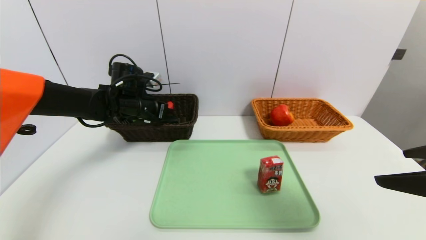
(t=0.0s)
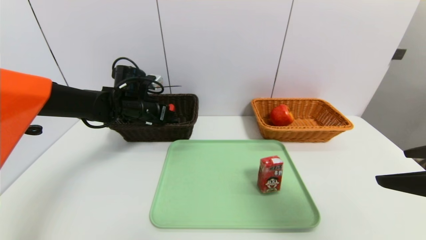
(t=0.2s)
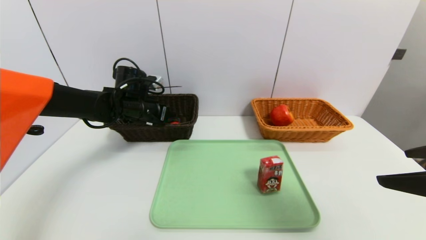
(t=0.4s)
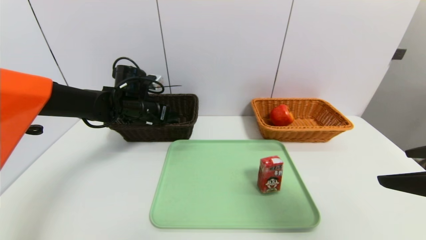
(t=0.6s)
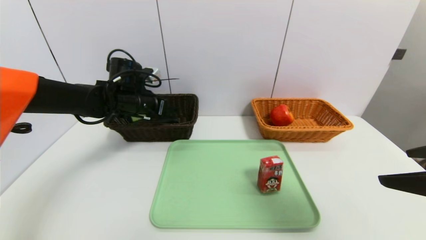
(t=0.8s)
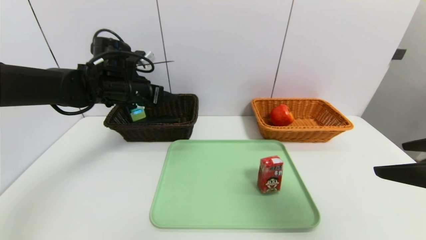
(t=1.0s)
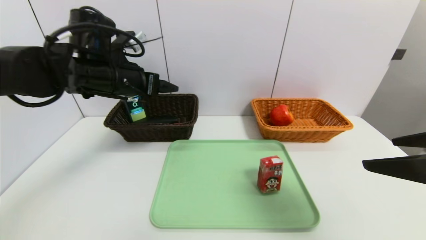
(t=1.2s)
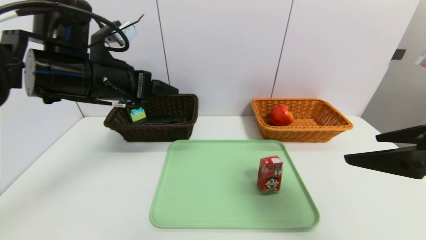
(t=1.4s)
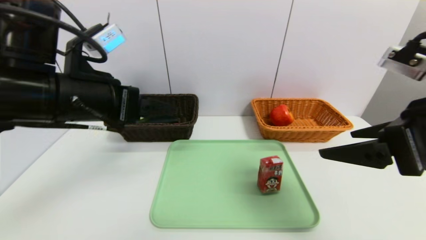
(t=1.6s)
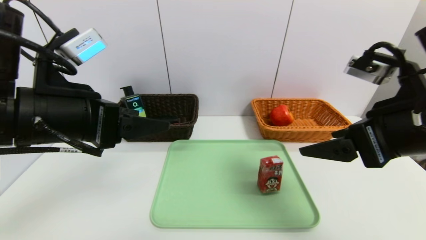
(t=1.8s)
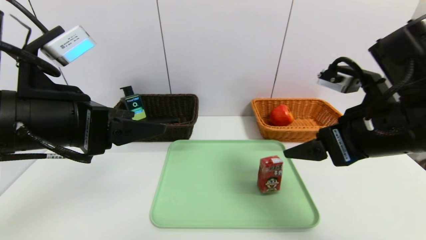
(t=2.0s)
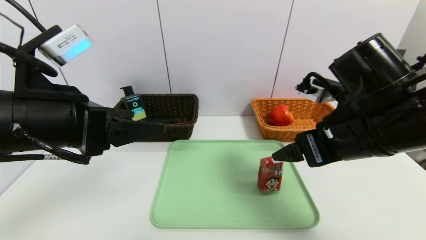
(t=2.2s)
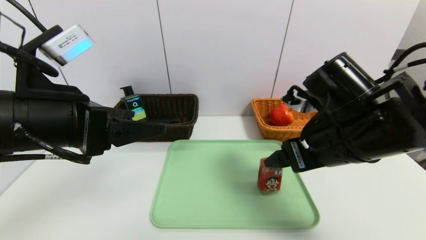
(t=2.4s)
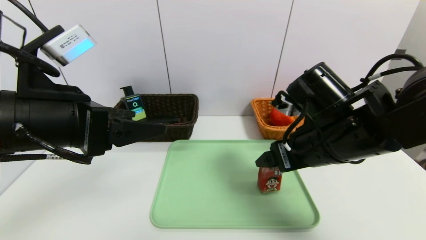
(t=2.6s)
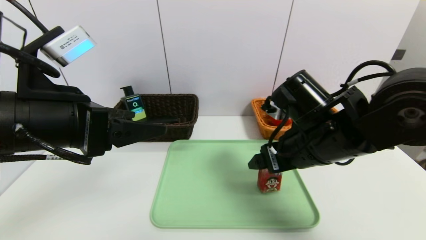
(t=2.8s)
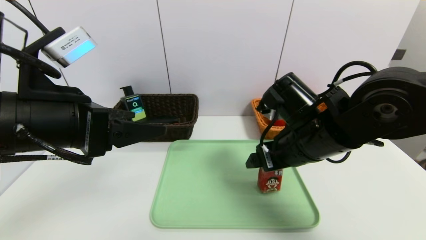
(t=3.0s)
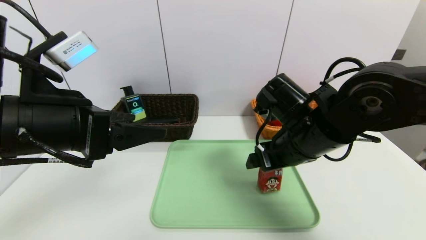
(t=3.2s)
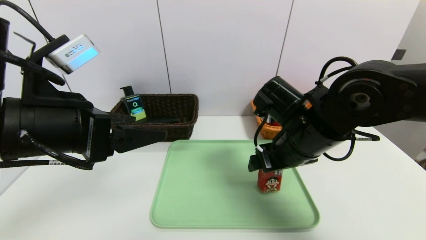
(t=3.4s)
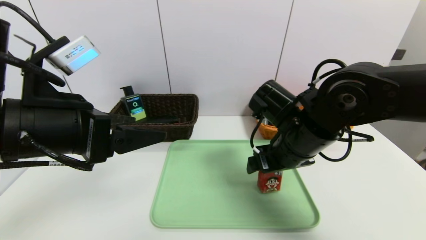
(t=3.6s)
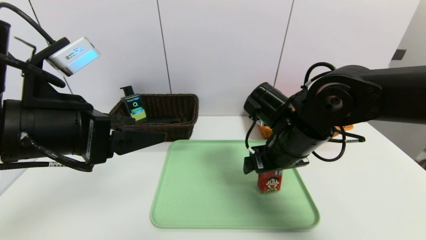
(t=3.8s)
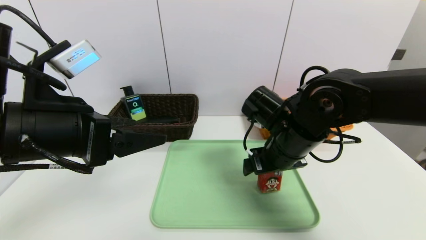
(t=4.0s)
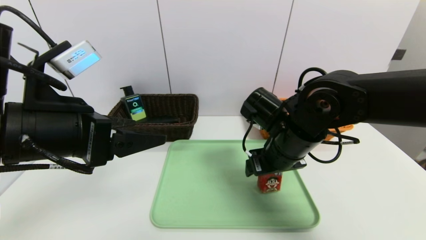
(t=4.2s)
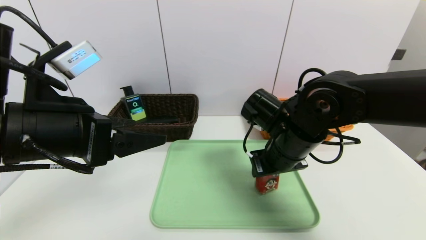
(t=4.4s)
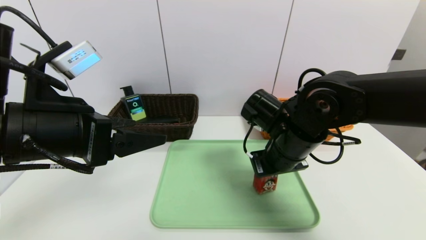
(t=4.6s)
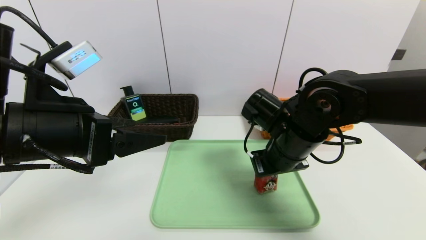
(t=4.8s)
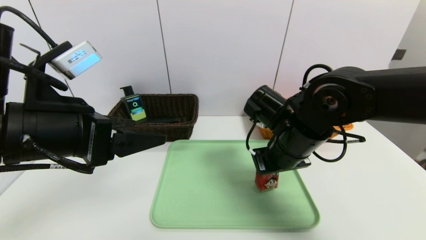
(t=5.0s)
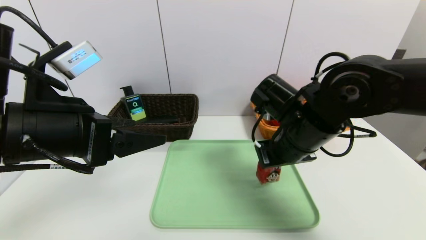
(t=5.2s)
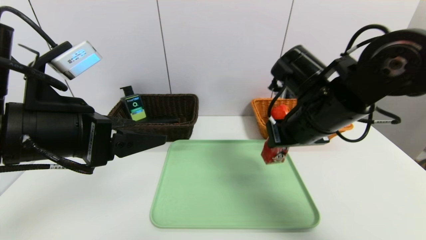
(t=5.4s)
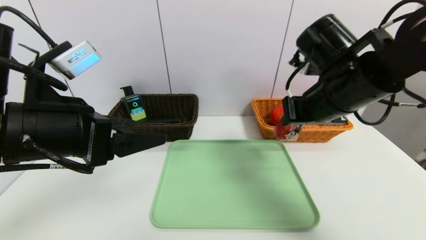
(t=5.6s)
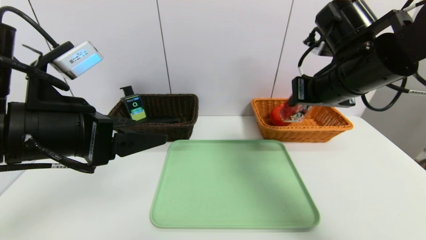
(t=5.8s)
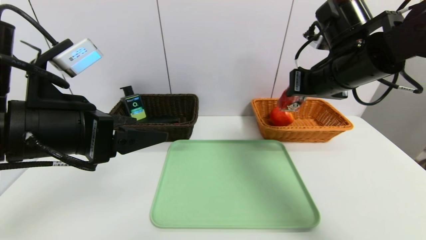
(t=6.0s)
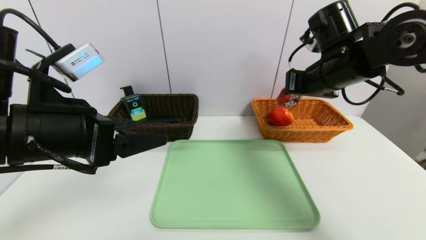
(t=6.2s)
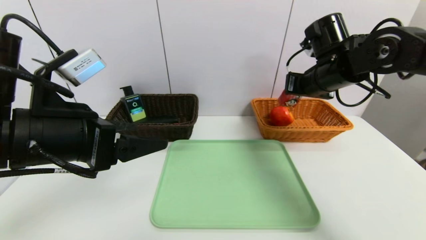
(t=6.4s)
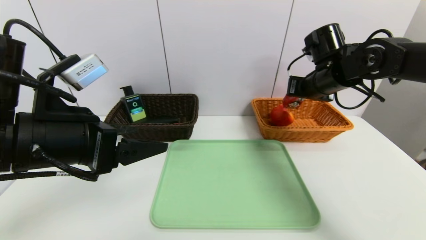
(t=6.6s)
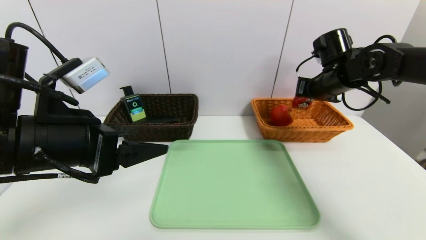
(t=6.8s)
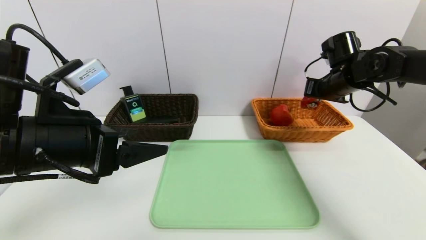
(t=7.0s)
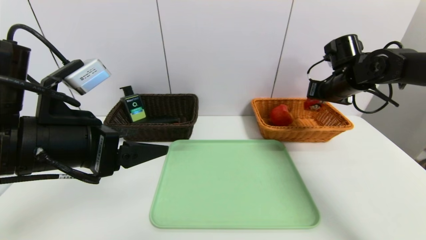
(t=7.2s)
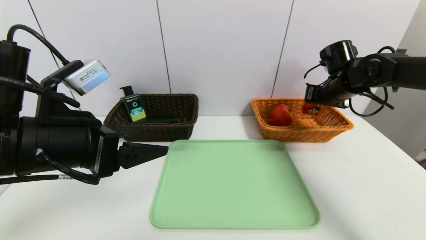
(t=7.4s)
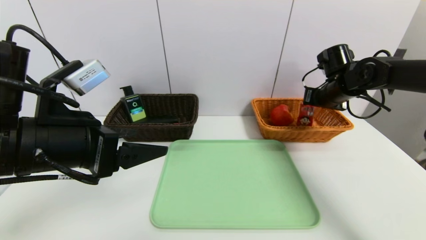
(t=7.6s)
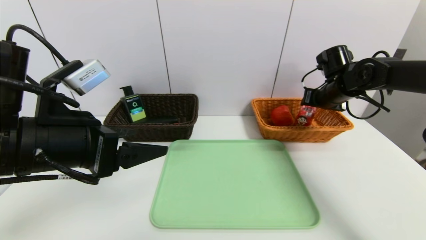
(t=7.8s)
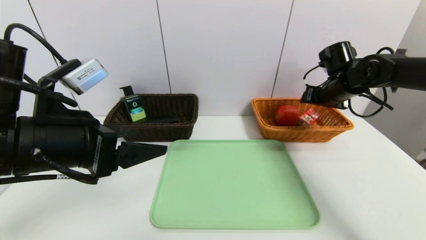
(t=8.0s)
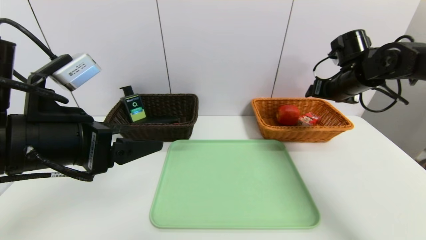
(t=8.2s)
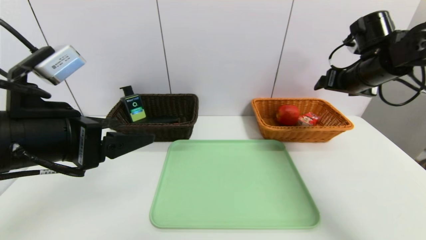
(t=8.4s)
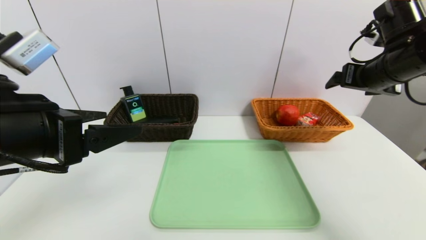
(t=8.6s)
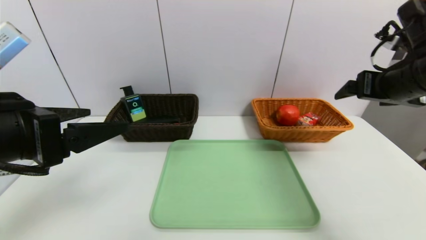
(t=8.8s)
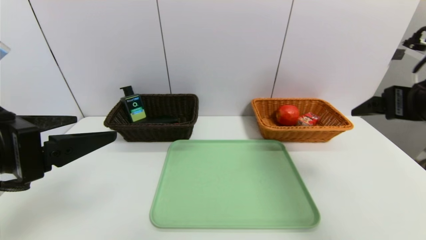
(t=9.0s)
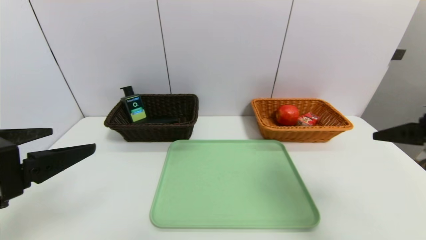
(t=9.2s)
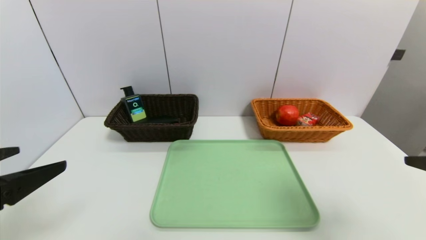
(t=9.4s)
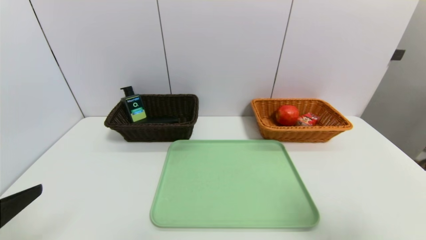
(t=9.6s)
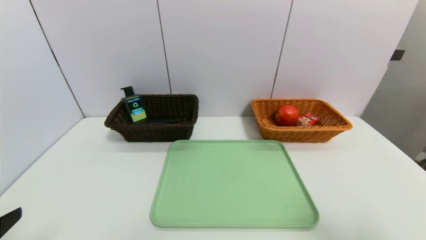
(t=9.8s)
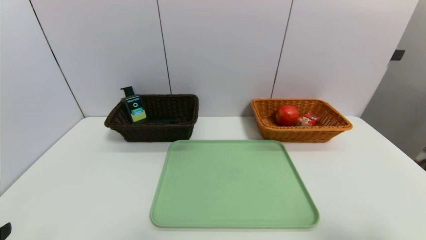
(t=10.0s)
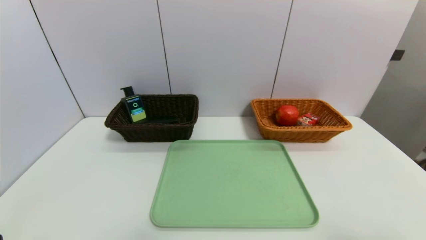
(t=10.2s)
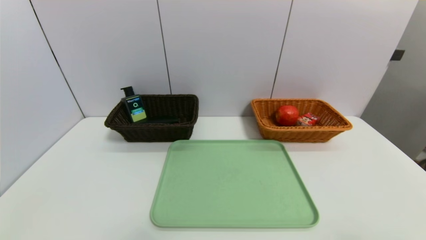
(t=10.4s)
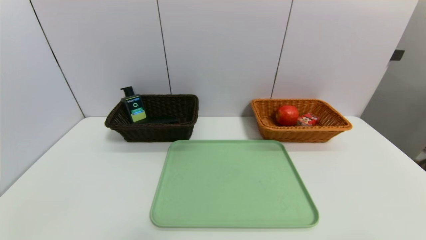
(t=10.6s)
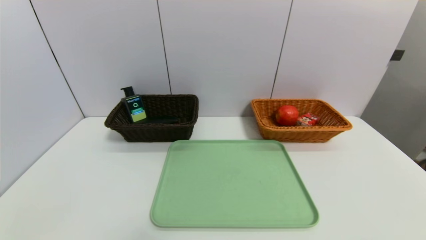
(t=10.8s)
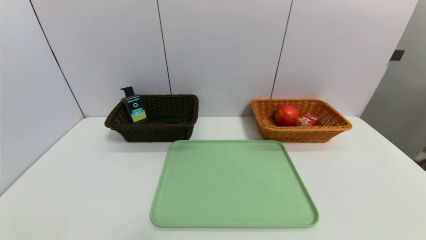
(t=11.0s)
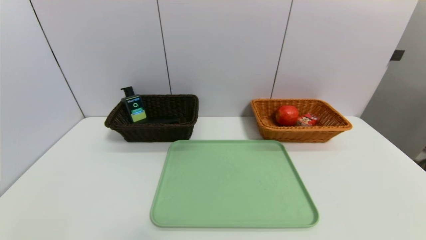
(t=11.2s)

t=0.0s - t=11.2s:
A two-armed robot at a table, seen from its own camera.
Task of the whole recording: place the food in the right basket with the right gripper, and place the non food items in the left basket with the left gripper.
Step, t=0.8s - t=7.8s: Grasp the milk and put it in the right basket.
t=0.0s - t=1.6s: The left gripper shifts roughly 25 cm backward and upward, and opens up; the right gripper ends up about 5 cm from where it was.
t=1.6s - t=3.2s: The right gripper heads to the left, forward and downward, covering approximately 20 cm.
t=3.2s - t=4.8s: The right gripper closes.
t=4.8s - t=6.4s: The right gripper shifts about 15 cm to the right, forward and upward.
t=6.4s - t=8.0s: The right gripper travels to the right, forward and downward by approximately 10 cm, and opens up.
t=8.0s - t=9.6s: The left gripper heads backward and to the left, covering approximately 15 cm. The right gripper travels backward by roughly 35 cm.
t=9.6s - t=11.2s: The right gripper heads backward and downward, covering some 15 cm, while the left gripper goes about 15 cm downward and backward.

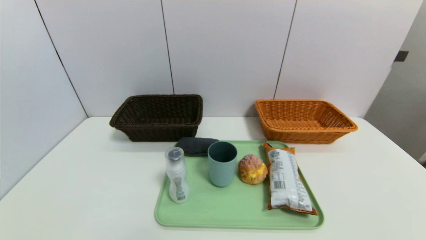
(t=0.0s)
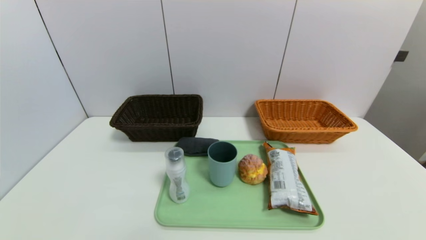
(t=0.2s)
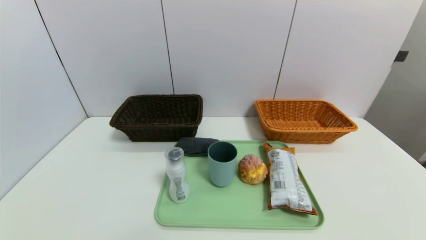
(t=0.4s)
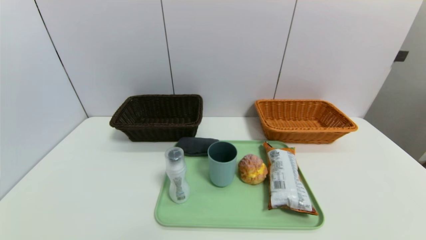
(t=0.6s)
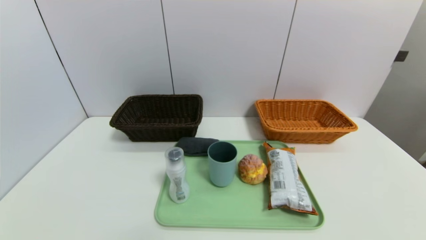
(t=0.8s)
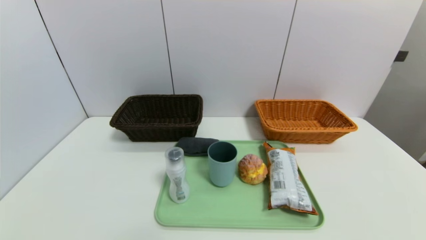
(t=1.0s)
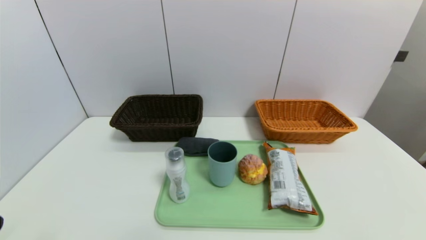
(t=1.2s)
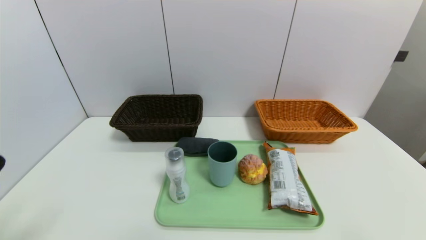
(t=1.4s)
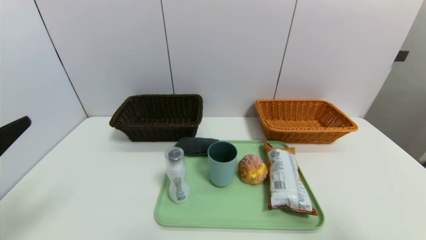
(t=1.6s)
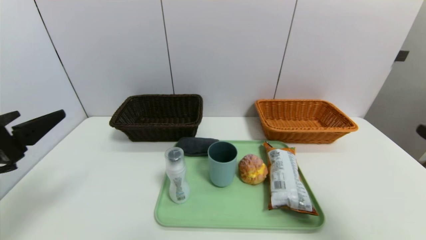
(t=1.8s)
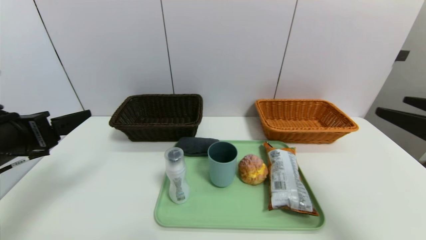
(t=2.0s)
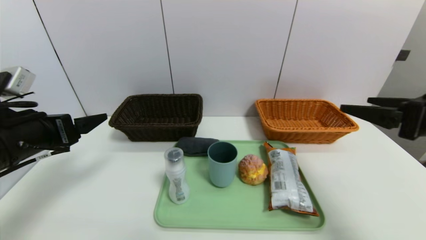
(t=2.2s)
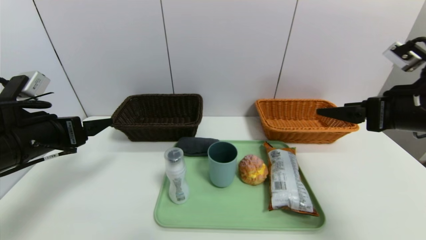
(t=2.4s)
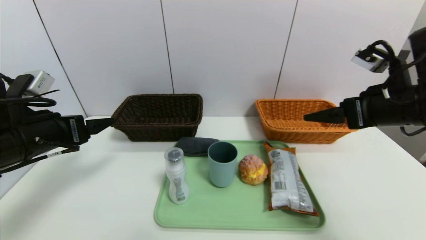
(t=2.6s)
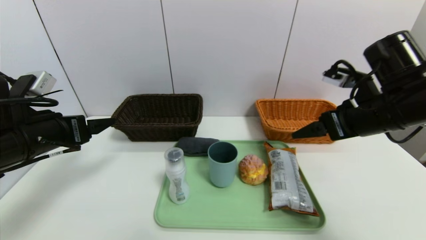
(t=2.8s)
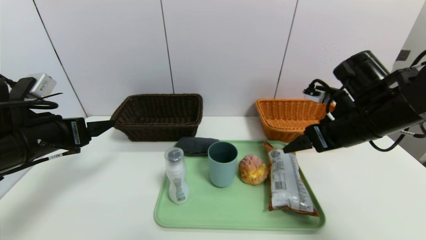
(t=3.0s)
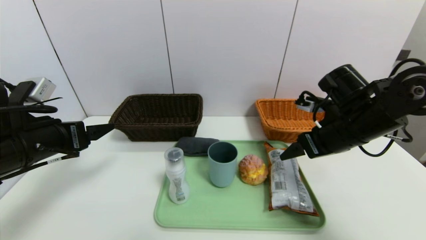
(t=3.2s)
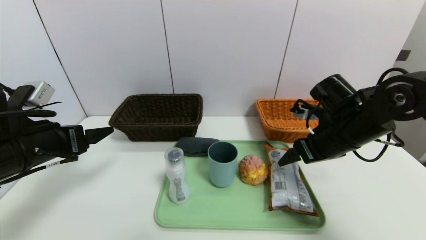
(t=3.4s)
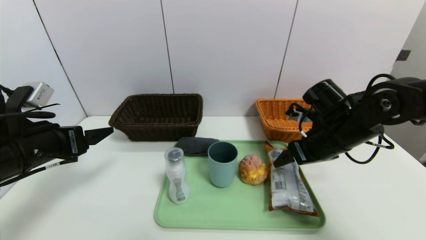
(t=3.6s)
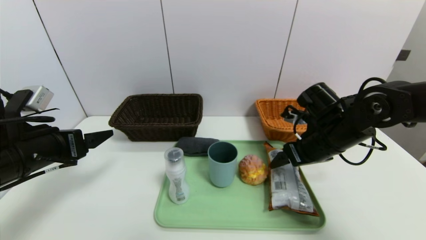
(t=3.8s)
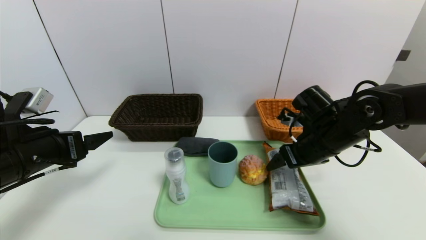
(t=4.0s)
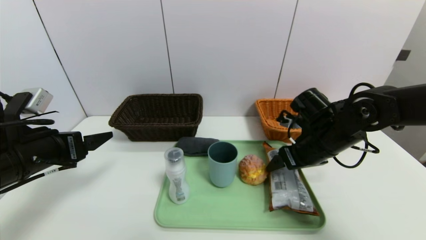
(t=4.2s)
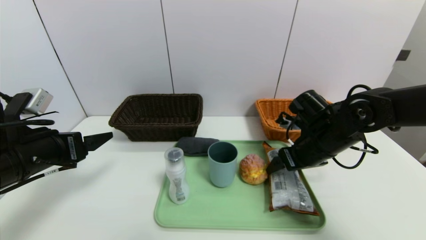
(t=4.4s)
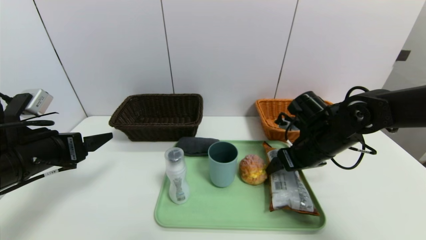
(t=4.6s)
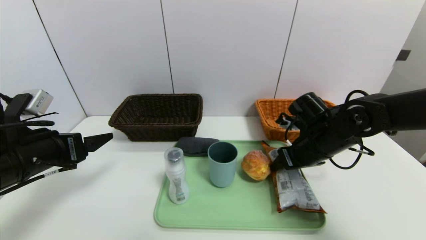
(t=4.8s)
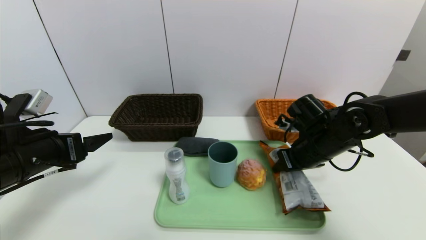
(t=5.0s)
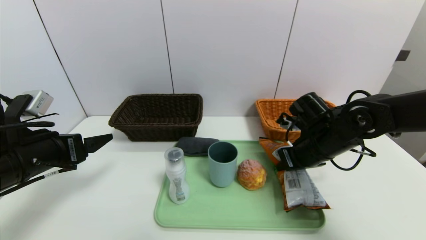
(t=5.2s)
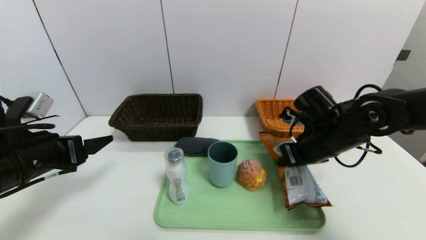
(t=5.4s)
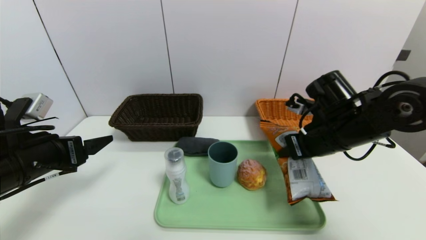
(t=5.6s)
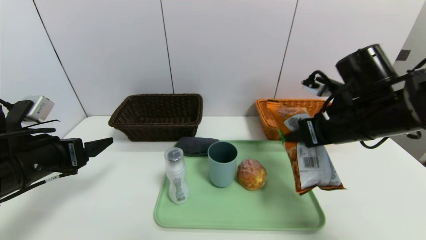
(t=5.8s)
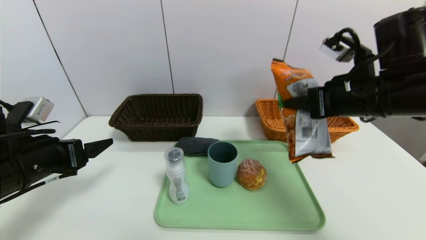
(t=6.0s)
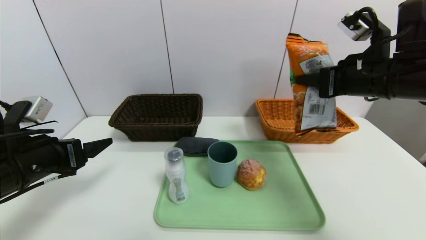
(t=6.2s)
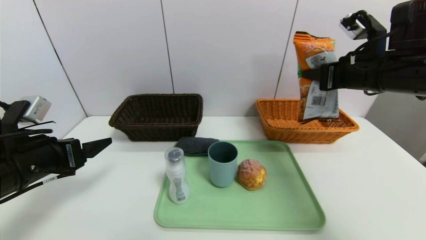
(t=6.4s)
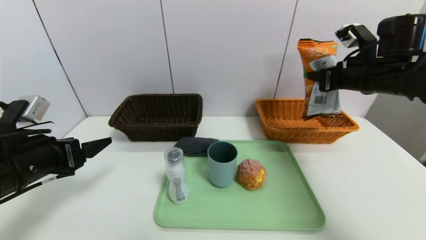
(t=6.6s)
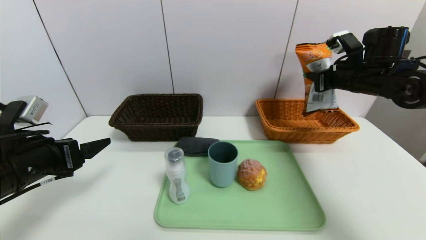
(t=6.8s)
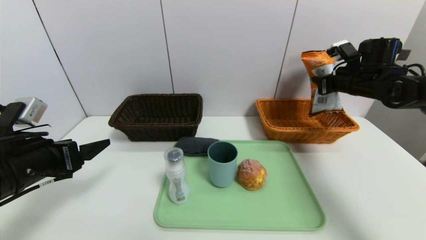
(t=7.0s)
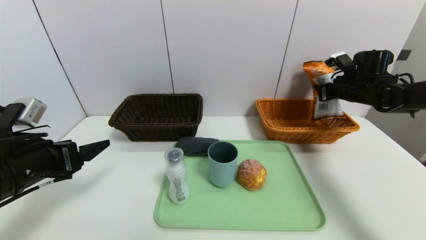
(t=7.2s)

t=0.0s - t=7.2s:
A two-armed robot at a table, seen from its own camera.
Task of the whole recording: place the food in the right basket with the right gripper, and place the non food items in the left basket with the left gripper.
t=1.4s - t=2.8s: The grippers both shift forward by approximately 20 cm.
t=2.8s - t=4.4s: The right gripper shifts roughly 10 cm downward.
t=4.4s - t=5.8s: The right gripper is displaced upward and backward by approximately 10 cm, and closes its fingers.
t=5.8s - t=7.2s: The right gripper is displaced forward and to the right by about 25 cm.
